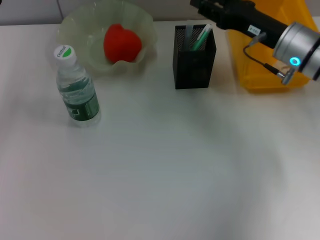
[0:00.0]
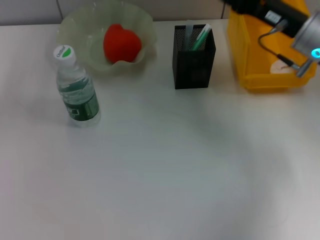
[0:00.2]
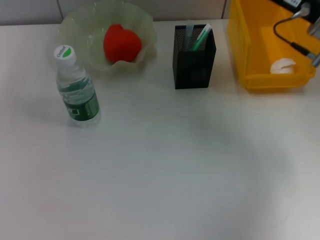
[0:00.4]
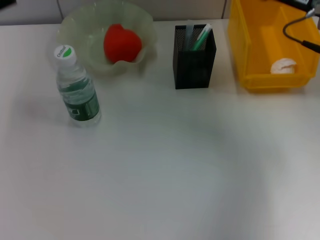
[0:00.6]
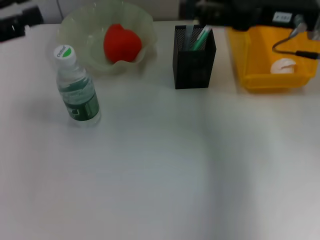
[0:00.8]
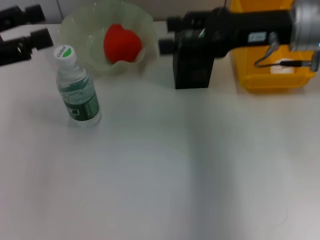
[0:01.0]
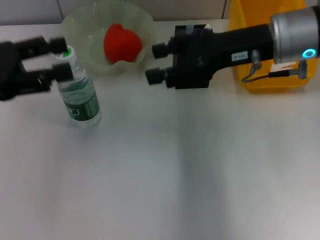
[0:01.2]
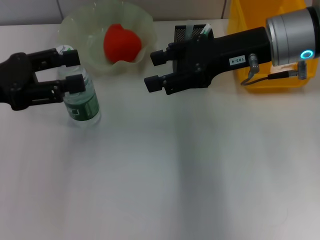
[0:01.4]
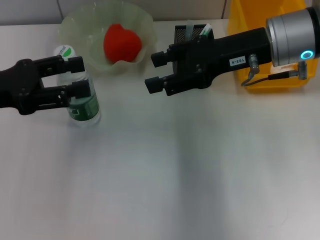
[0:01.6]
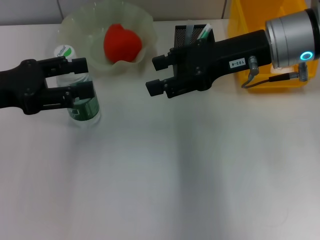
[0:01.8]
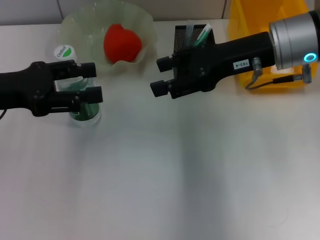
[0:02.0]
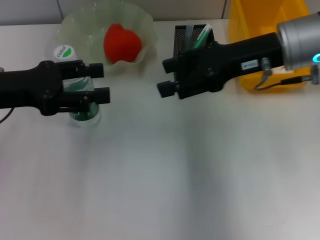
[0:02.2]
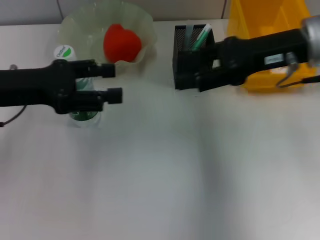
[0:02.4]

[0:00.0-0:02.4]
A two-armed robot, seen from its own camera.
0:00.0 to 0:01.2: The left gripper moves some 5 cm. The right gripper shifts roughly 10 cm upward, and opens up.
0:01.2 to 0:02.4: The left gripper changes place by roughly 5 cm.

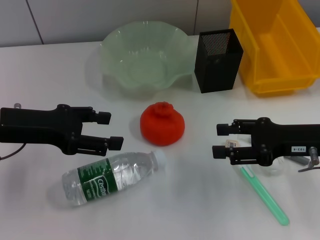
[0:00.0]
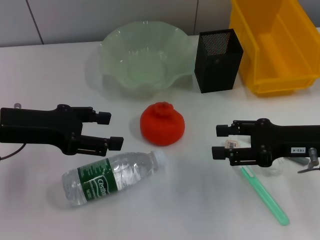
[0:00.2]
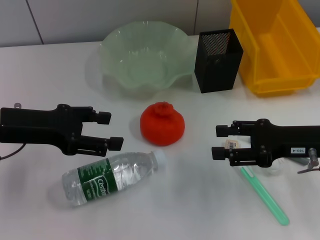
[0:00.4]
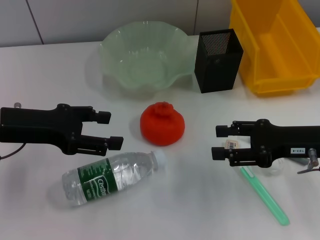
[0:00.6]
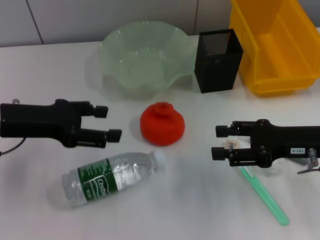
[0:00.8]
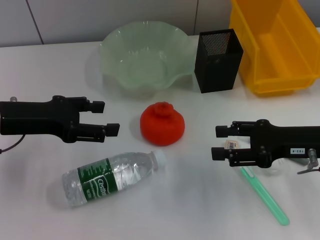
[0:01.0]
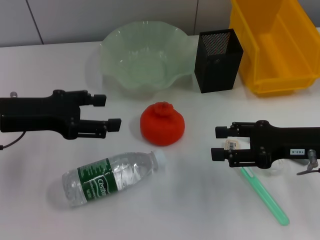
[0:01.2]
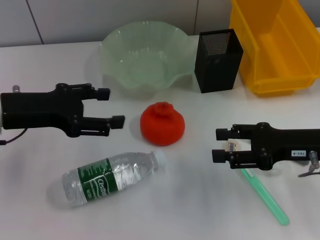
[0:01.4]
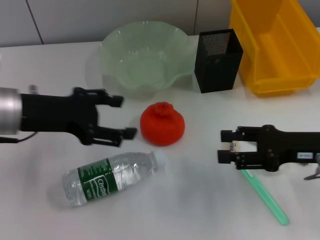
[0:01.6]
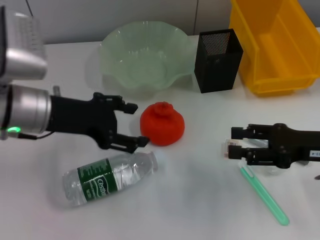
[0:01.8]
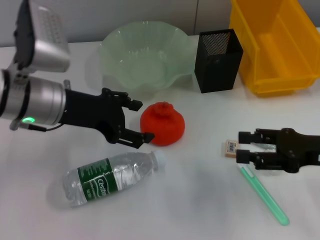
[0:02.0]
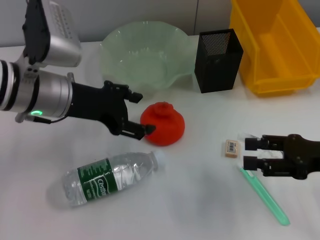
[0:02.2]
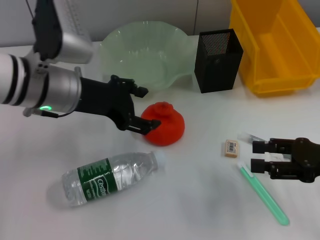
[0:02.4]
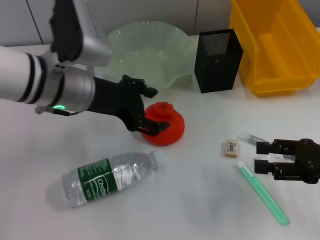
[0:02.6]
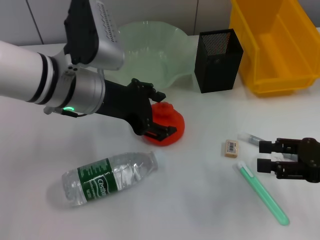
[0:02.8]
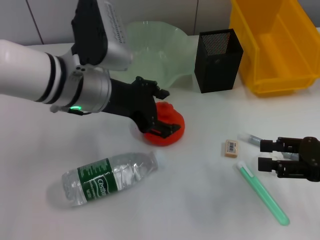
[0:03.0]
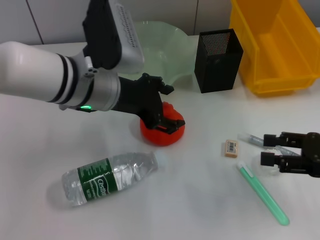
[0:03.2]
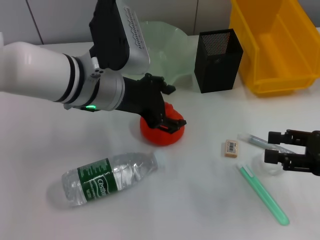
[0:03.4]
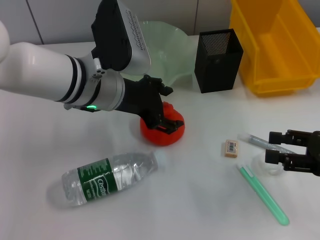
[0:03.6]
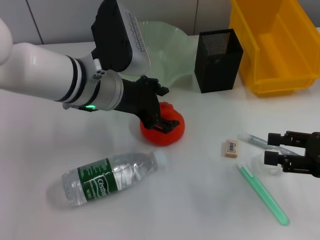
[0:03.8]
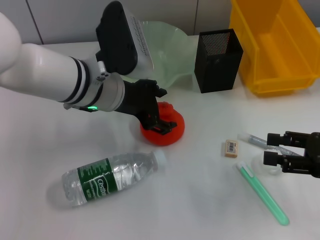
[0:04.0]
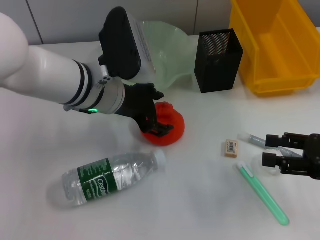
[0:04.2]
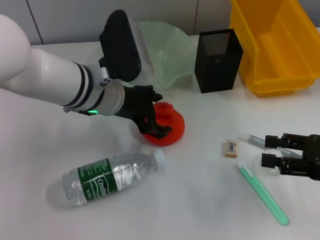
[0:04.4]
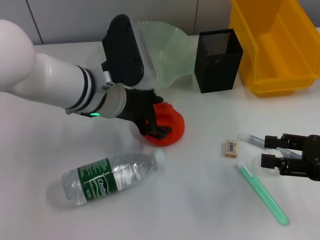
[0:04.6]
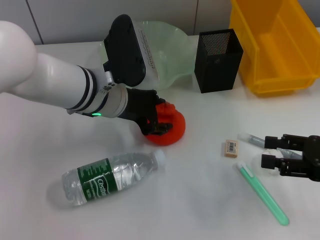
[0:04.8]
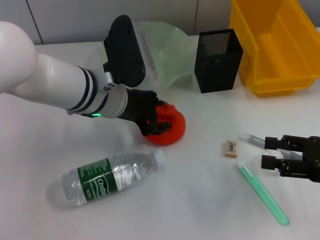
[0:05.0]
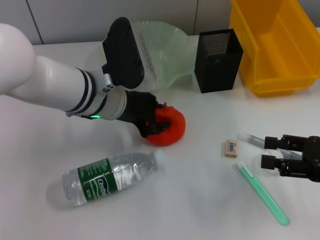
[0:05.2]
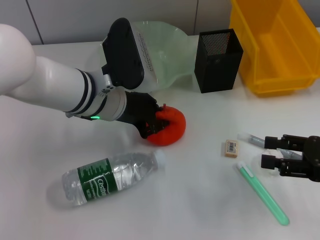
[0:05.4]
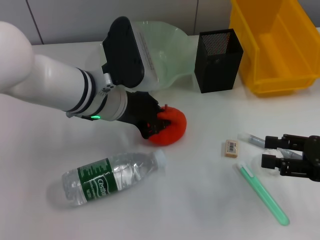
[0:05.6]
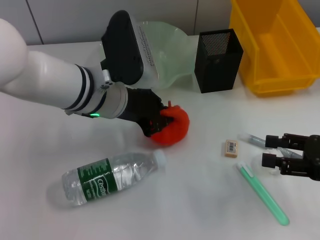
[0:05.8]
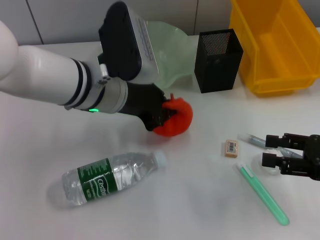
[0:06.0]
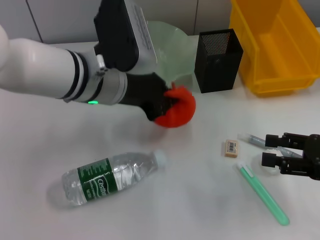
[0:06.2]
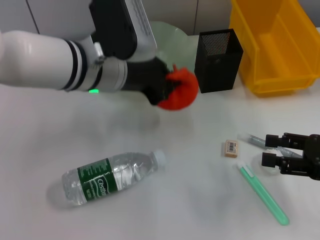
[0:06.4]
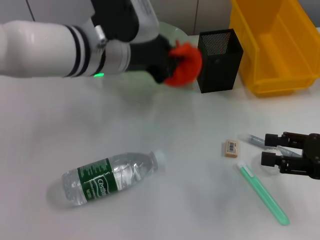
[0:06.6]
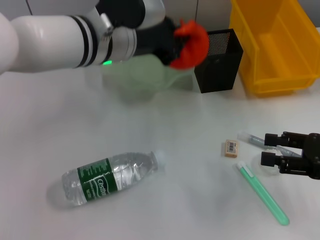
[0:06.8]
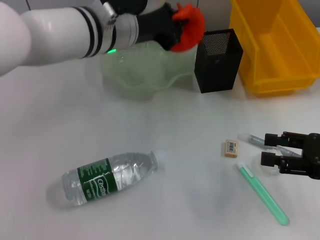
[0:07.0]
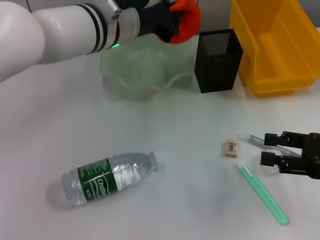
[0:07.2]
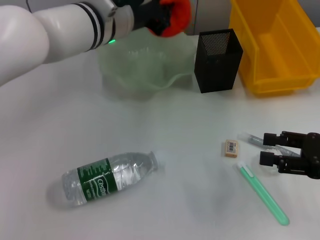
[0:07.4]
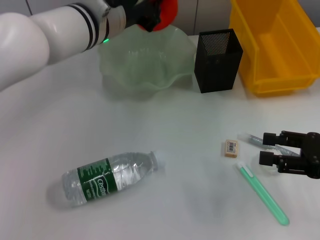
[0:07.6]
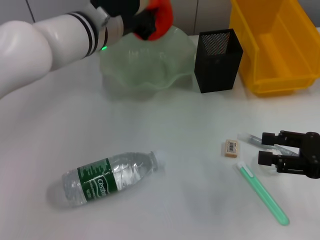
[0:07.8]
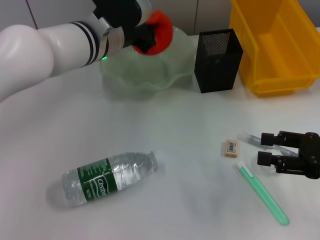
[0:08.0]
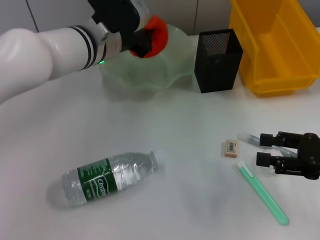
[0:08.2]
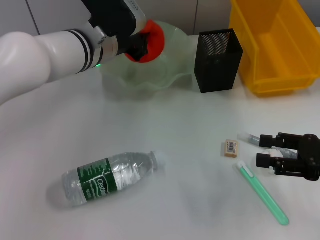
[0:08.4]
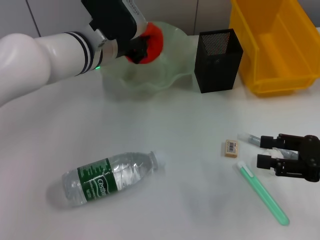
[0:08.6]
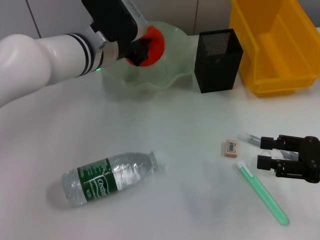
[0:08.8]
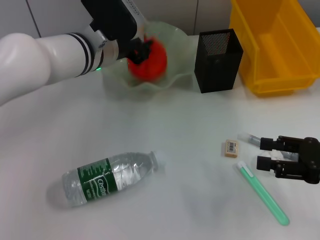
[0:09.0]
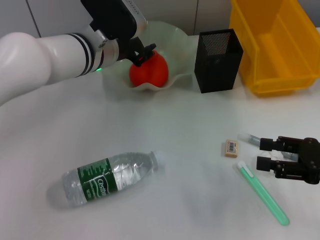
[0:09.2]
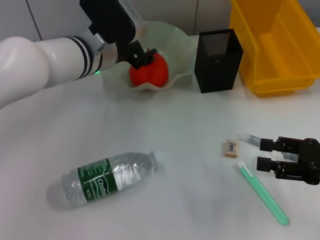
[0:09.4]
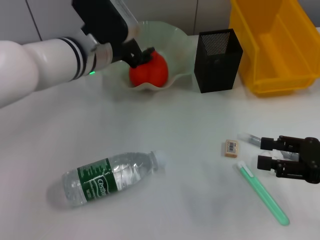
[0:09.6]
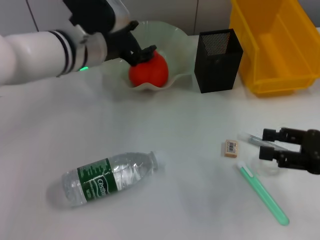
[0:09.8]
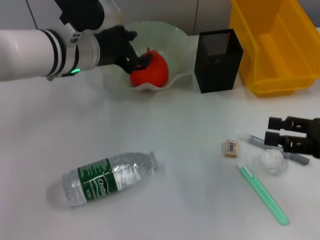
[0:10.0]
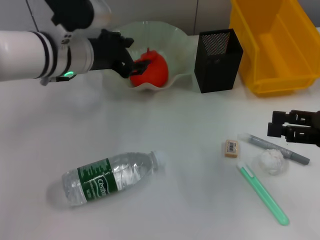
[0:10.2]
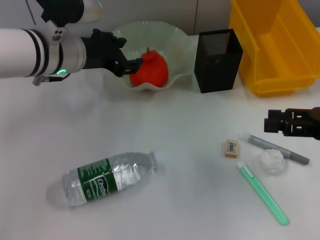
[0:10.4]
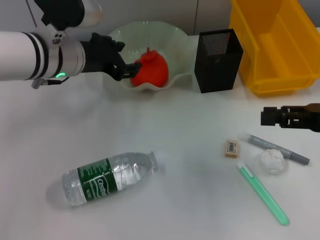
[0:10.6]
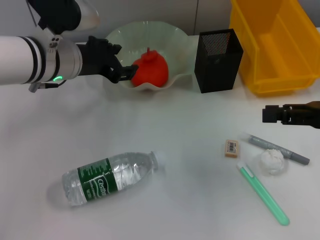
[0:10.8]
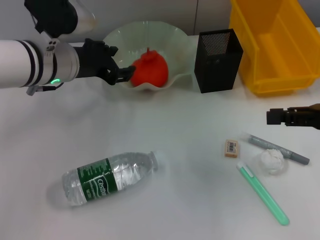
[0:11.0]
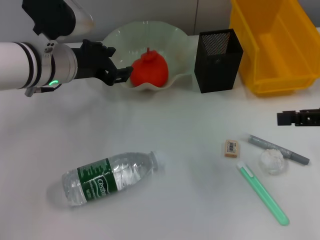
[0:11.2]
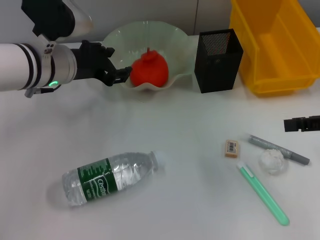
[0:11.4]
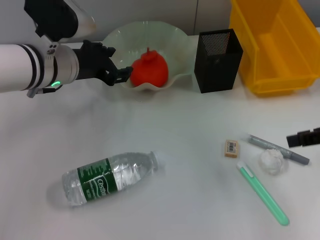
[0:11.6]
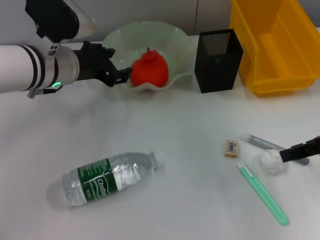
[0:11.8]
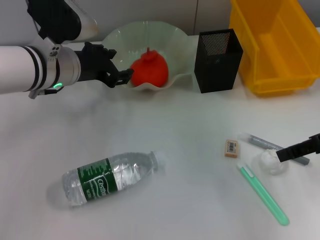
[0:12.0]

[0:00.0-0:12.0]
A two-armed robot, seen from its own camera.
Step, 0:00.0 to 0:05.2: Grab the orange with the left hand.
Step, 0:05.6 to 0:09.6: Place the orange into the fruit bowl with the left hand.
0:00.0 to 0:01.6: The grippers stay close to where they were, moving slightly.
0:01.6 to 0:03.0: The left gripper travels to the right by some 10 cm. Meanwhile the right gripper moves about 5 cm.
0:03.0 to 0:04.4: The grippers move only a little.
0:04.4 to 0:06.0: The left gripper closes its fingers.
0:06.0 to 0:07.6: The left gripper travels forward by about 5 cm.
0:07.6 to 0:09.0: The grippers move only a little.
0:09.0 to 0:10.4: The left gripper ends up about 5 cm from where it was, and opens its fingers; the right gripper goes roughly 5 cm upward.

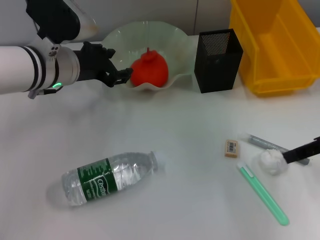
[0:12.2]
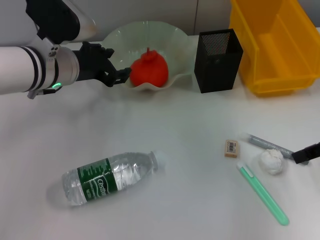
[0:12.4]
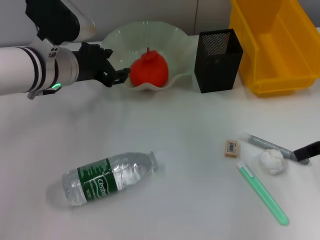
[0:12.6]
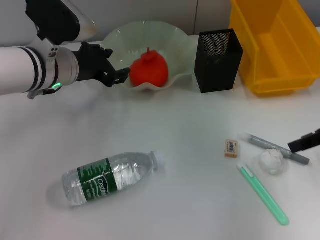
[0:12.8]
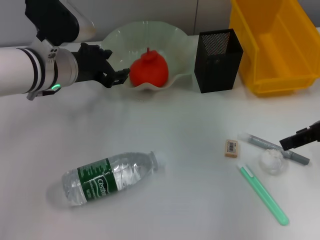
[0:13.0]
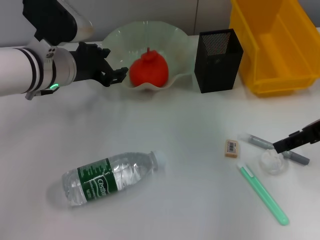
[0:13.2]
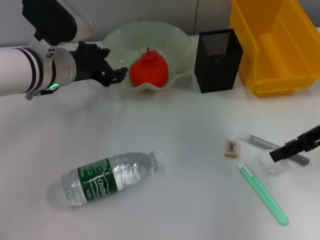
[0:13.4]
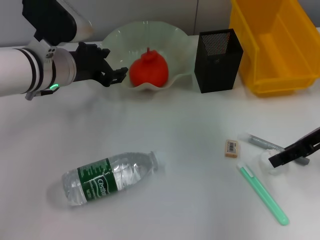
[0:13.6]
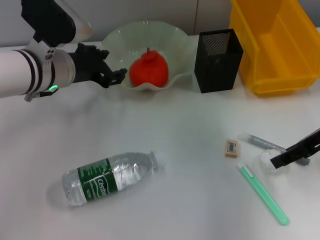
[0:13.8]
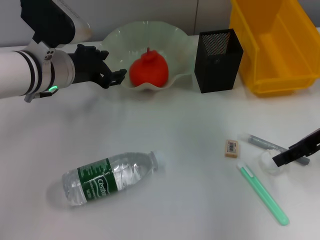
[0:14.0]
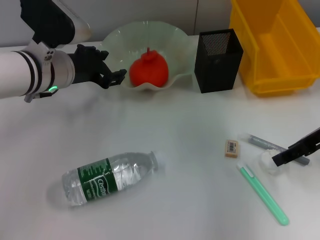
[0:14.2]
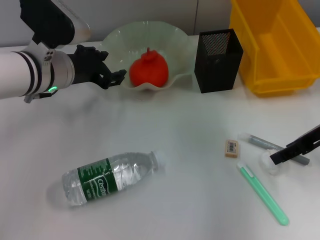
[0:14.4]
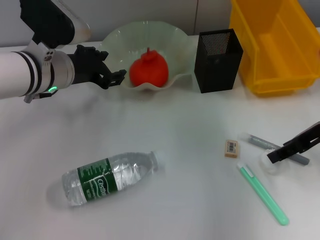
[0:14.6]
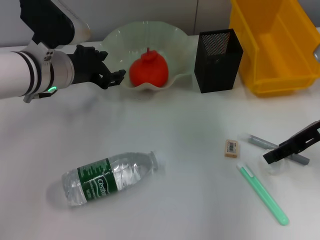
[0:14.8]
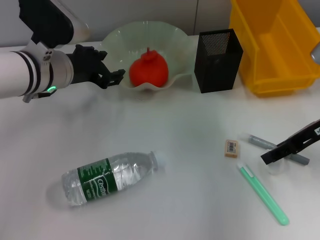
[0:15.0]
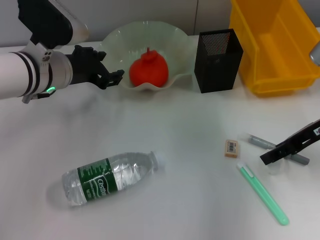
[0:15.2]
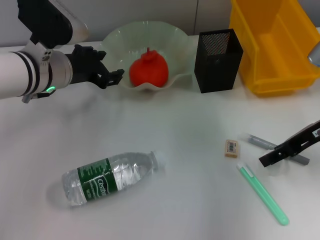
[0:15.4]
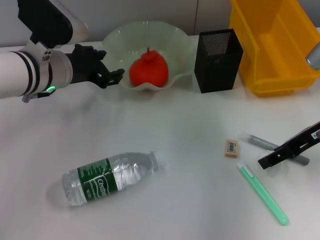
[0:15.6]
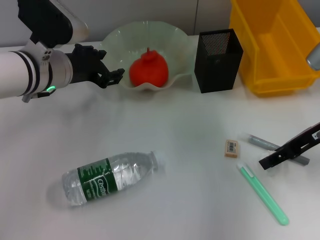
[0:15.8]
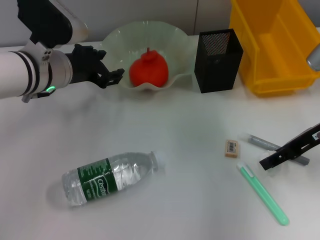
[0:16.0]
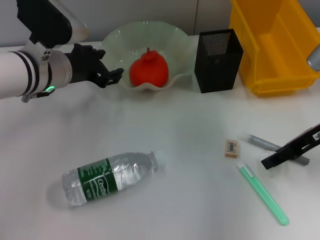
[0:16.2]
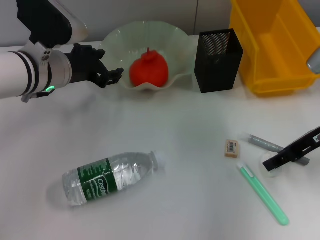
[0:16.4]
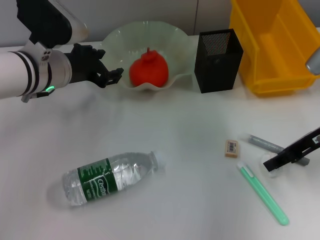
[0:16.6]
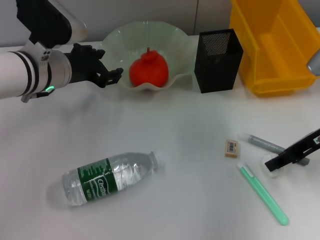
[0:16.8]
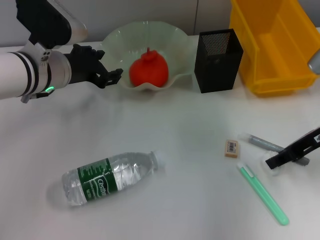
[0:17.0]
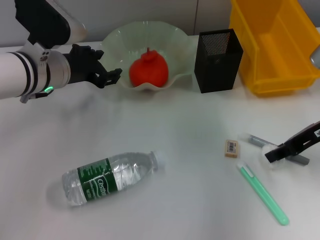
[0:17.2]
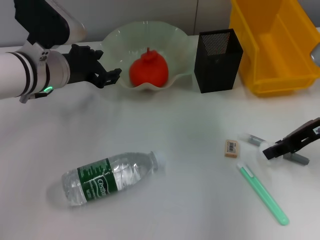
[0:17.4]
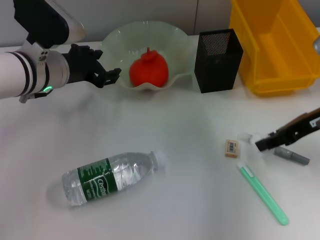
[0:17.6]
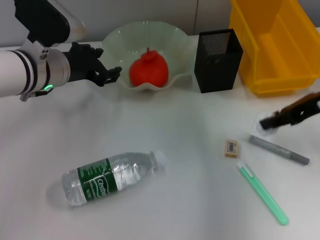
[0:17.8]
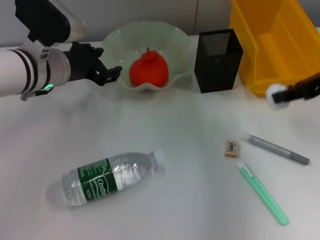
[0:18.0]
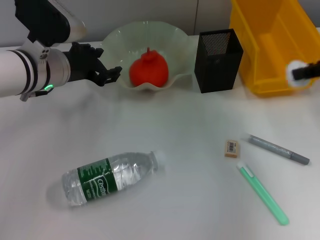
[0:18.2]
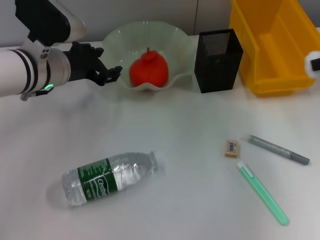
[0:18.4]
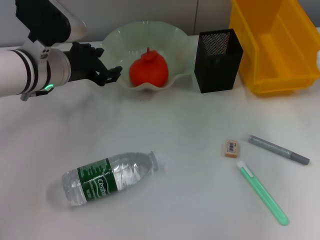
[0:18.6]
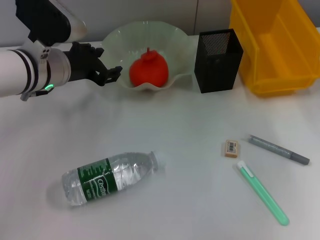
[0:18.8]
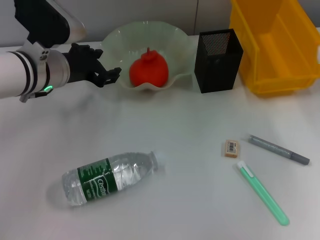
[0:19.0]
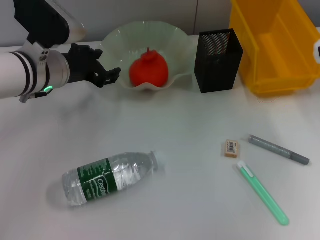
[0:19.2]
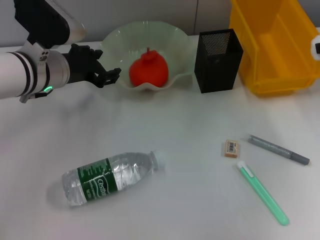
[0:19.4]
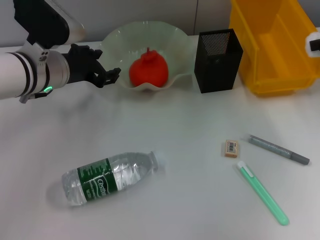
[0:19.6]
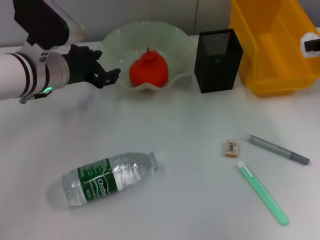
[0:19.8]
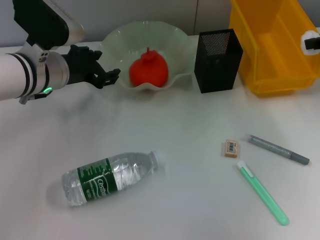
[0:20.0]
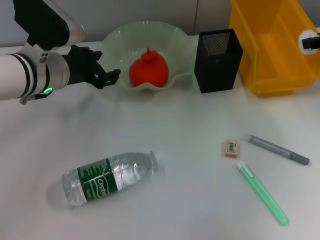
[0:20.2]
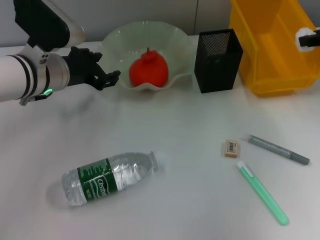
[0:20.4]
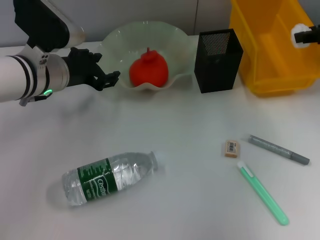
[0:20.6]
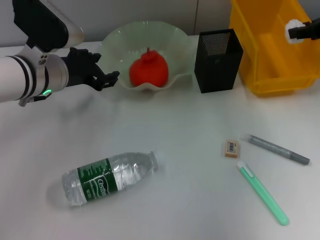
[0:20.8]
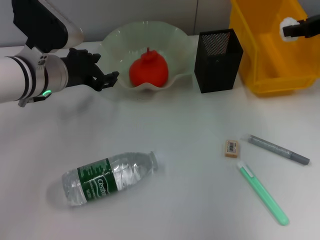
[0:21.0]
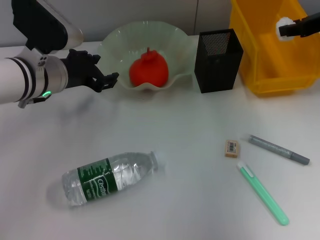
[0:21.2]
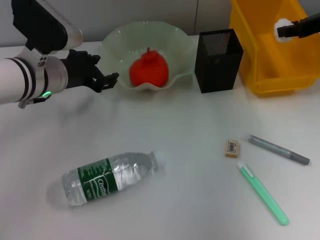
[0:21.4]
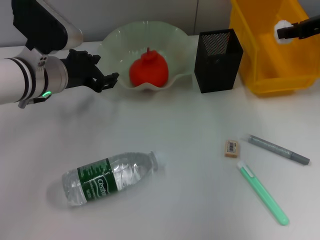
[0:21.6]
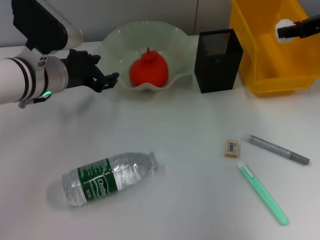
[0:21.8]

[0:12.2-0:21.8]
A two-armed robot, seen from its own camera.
Step, 0:12.2 to 0:16.6: Grab the paper ball with the right hand.
0:12.2 to 0:13.8: The grippers move only a little.
0:13.8 to 0:15.4: The grippers make only small movements.
0:15.4 to 0:17.0: The right gripper closes.
0:17.0 to 0:18.6: The right gripper is displaced upward and to the right by about 15 cm.
0:18.6 to 0:20.2: The right gripper shifts roughly 5 cm forward.
0:20.2 to 0:21.8: The grippers move only a little.
